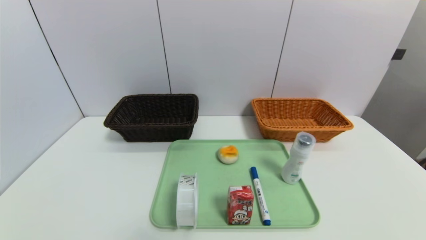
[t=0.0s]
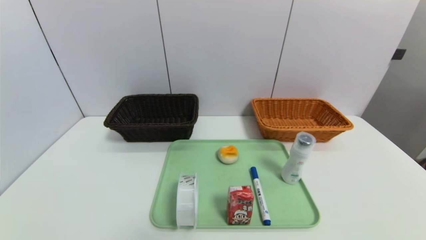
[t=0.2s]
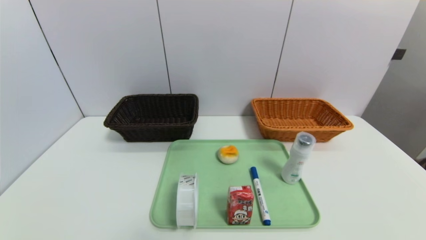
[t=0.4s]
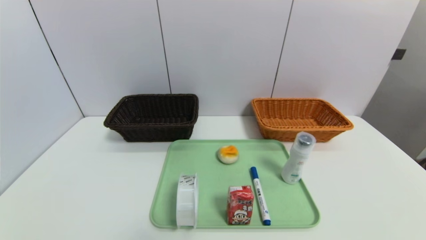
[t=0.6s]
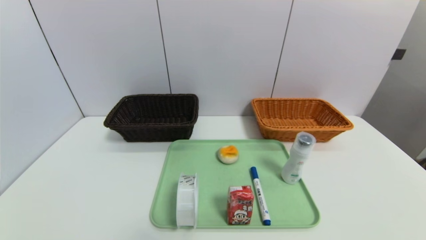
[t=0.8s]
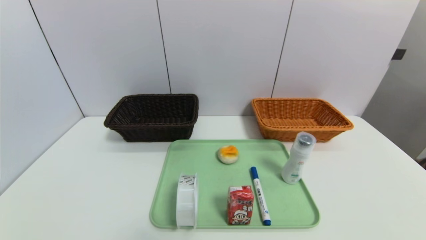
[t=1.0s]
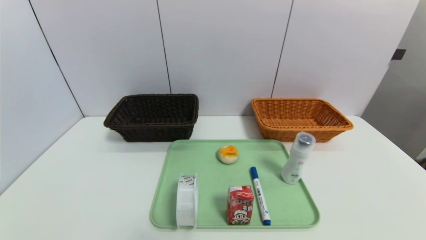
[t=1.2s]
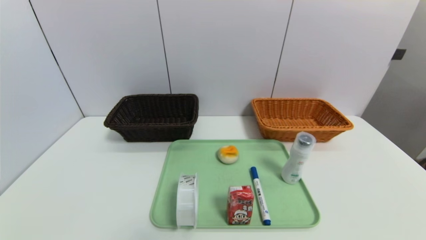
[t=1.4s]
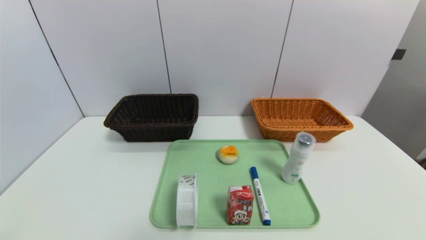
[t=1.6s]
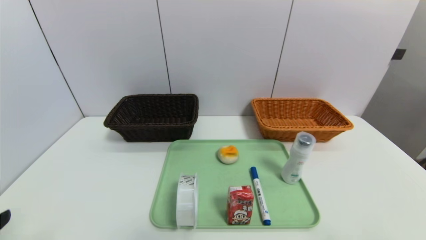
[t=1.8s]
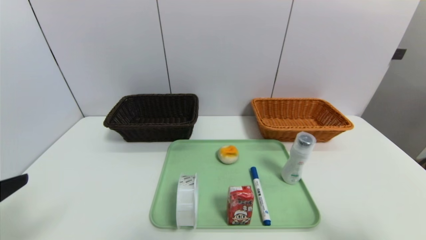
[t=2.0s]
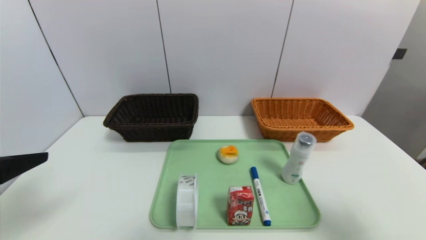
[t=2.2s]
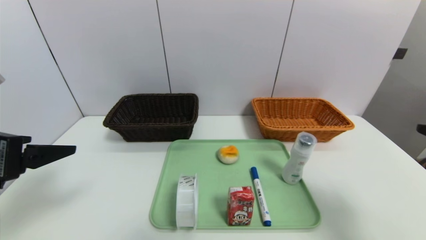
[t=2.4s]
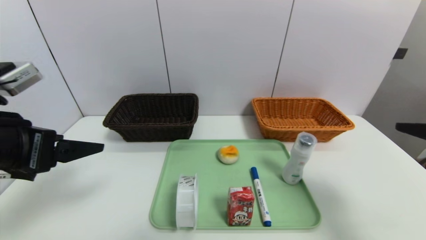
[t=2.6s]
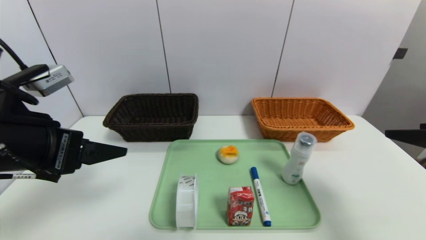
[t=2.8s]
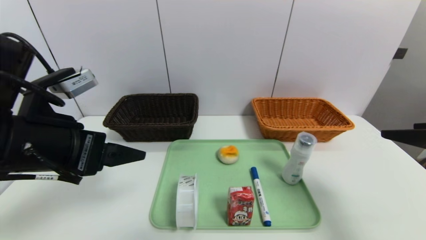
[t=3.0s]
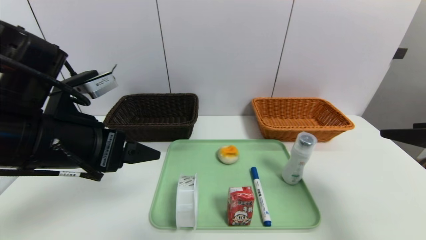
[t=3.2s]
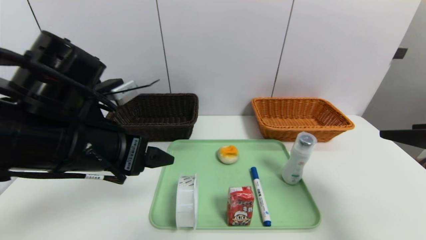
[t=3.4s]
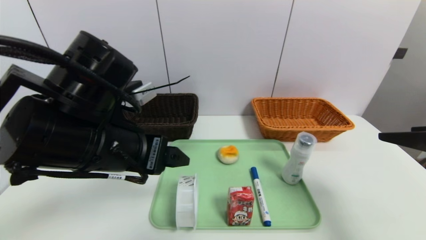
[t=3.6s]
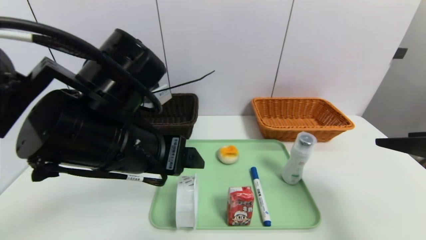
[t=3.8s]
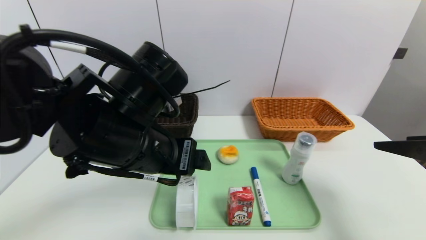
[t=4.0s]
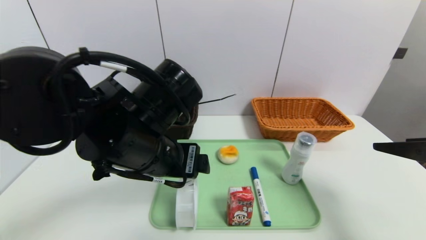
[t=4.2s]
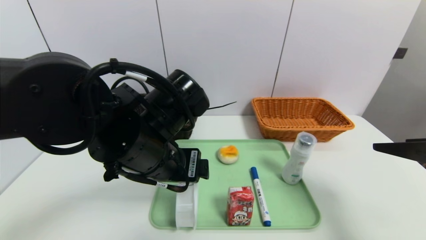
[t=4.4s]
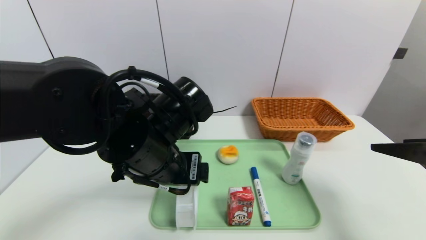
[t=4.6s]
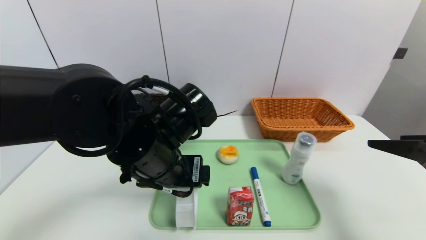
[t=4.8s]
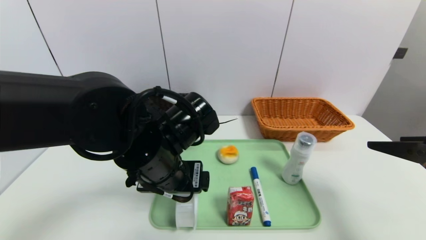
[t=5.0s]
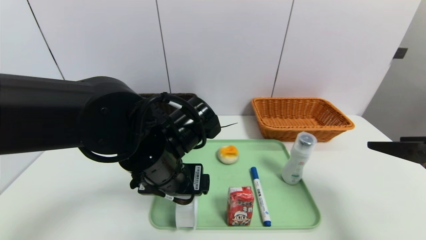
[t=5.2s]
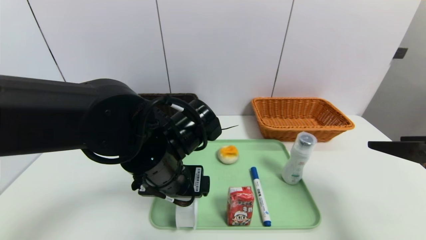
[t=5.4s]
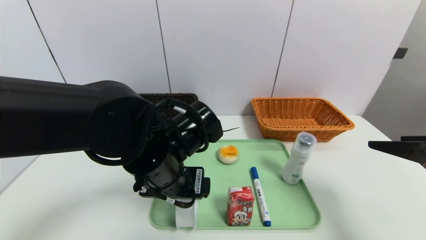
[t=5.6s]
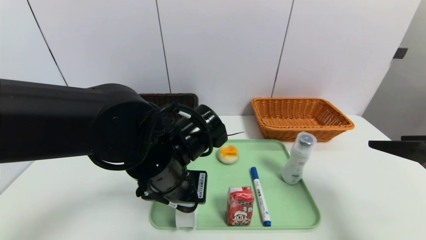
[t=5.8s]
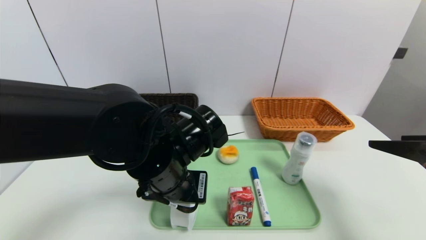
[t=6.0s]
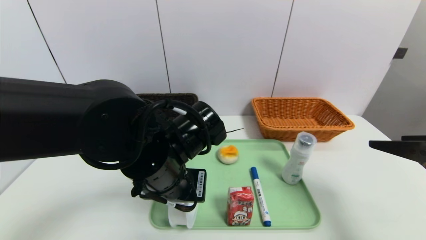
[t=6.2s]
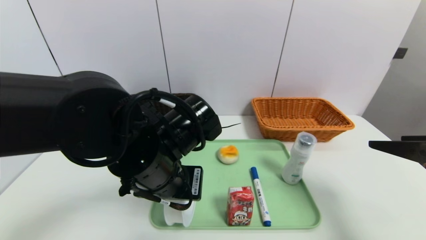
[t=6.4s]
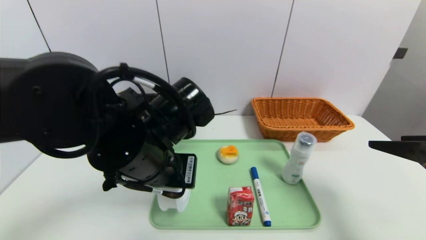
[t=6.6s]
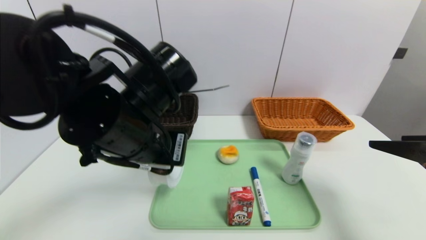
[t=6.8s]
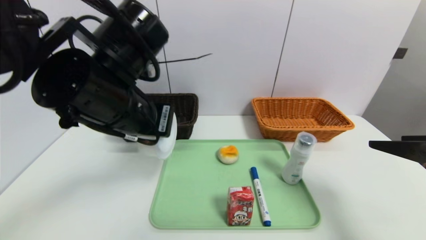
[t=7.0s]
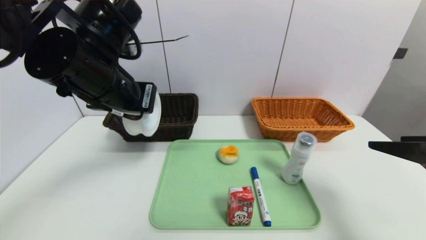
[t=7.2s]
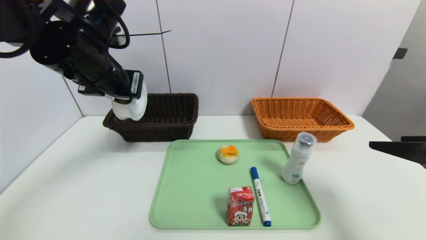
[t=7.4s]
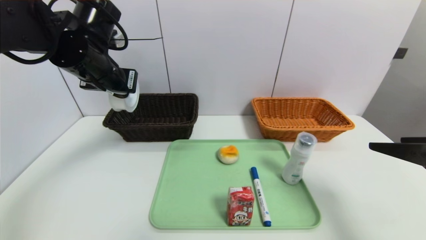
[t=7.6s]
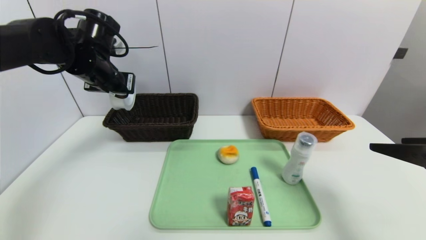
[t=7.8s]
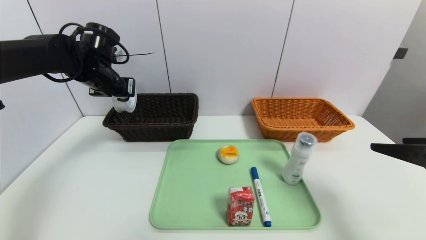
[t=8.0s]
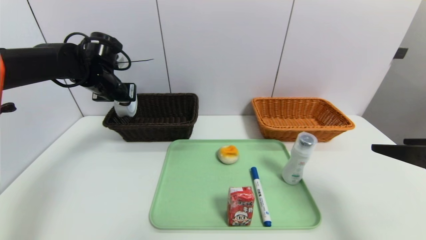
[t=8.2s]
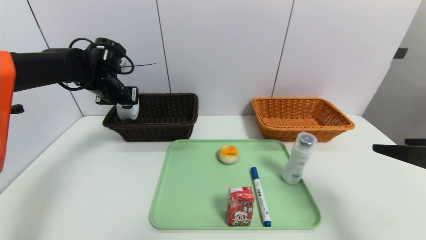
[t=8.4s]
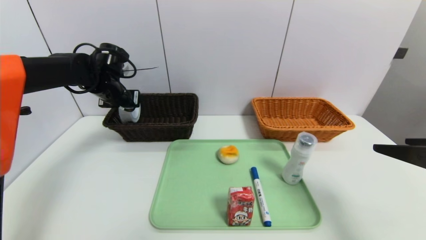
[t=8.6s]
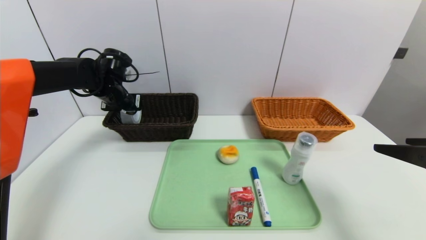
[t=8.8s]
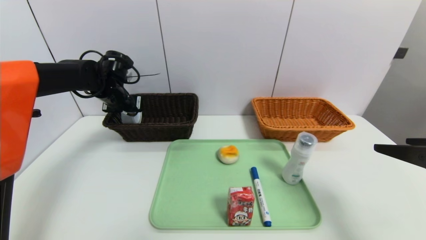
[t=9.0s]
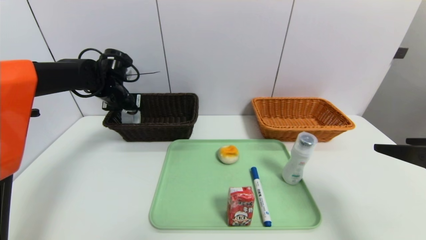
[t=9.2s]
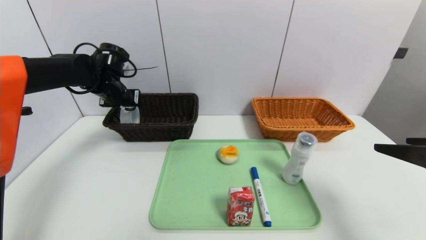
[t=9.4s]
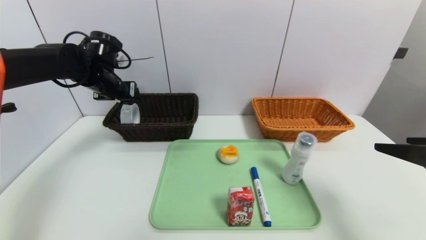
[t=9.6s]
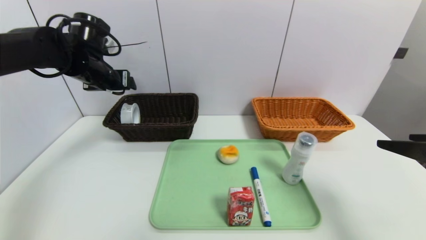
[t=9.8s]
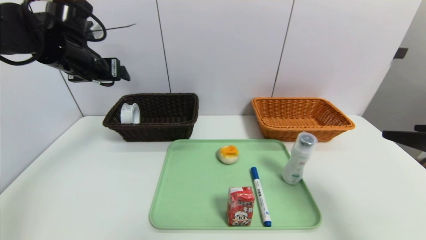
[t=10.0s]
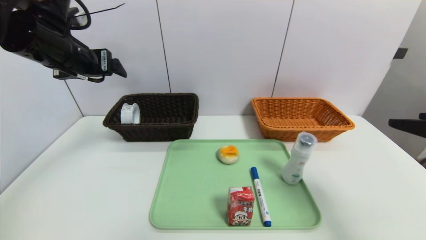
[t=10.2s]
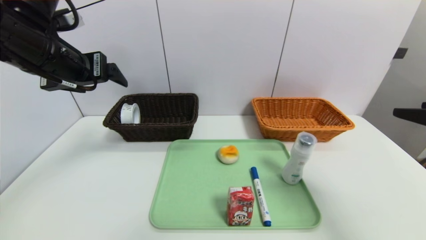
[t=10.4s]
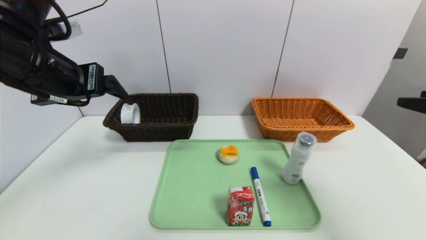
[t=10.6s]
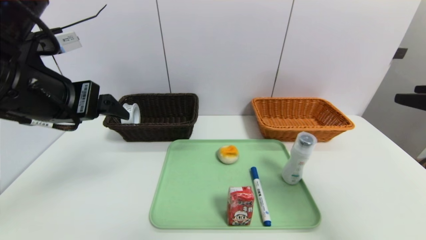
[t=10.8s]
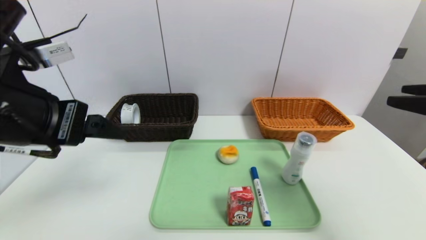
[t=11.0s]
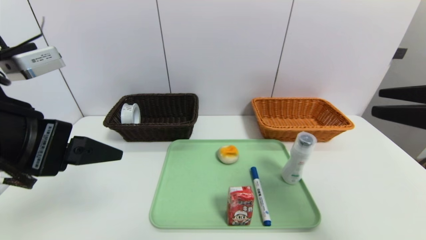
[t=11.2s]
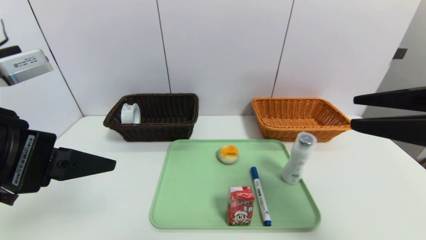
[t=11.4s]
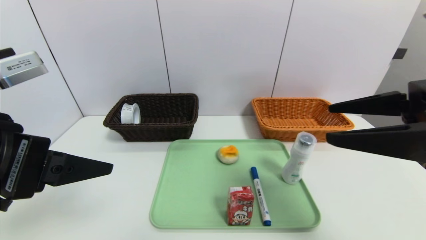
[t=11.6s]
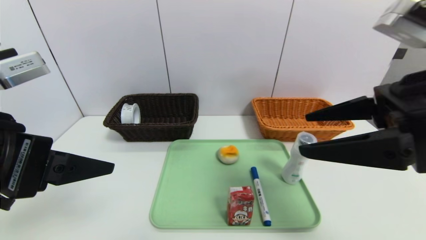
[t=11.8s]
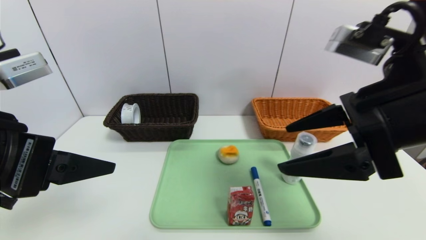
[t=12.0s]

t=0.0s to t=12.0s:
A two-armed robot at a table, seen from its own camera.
Task of the whole recording: place the food in the right basket with the right gripper, and place the non food items in the left basket with the left gripper.
Step, t=0.0s to t=9.6s: Grasp the tape and put it in the left basket.
t=1.6s to t=3.0s: The left gripper goes approximately 20 cm forward, upward and to the right. Meanwhile the right gripper shifts roughly 20 cm forward and upward.
t=3.0s to t=4.4s: The left gripper heads to the right, covering approximately 15 cm.
t=4.4s to t=6.0s: The left gripper closes up.
t=6.0s to t=7.6s: The left gripper shifts roughly 20 cm to the left, forward and upward.
t=7.6s to t=9.0s: The left gripper goes some 15 cm forward and downward.
t=9.0s to t=10.4s: The left gripper goes about 20 cm backward and upward, and opens its fingers.
t=10.4s to t=12.0s: The left gripper heads backward, covering roughly 15 cm. Meanwhile the right gripper travels to the left by roughly 15 cm.

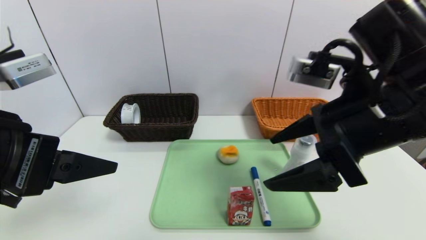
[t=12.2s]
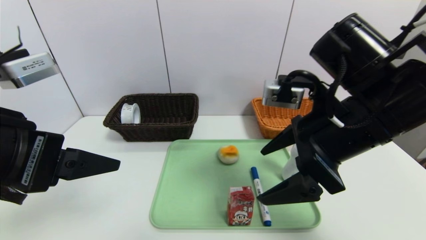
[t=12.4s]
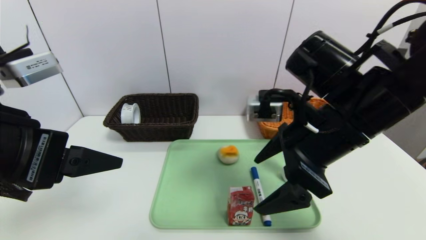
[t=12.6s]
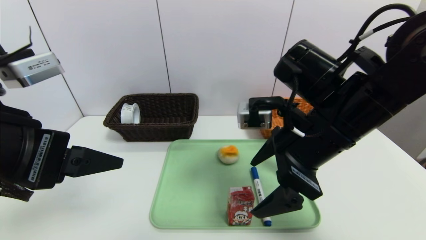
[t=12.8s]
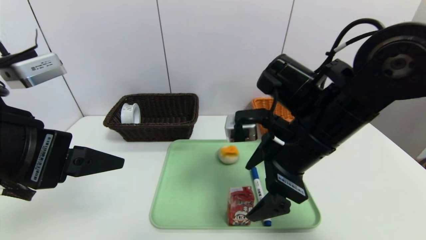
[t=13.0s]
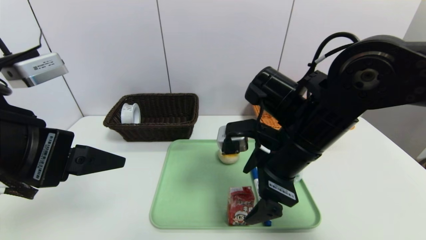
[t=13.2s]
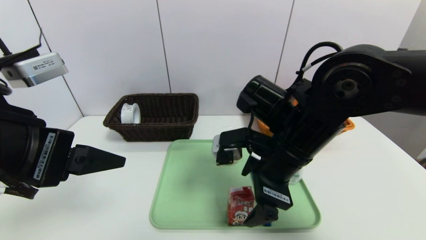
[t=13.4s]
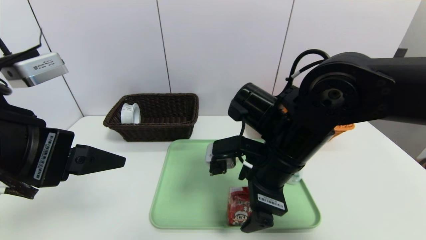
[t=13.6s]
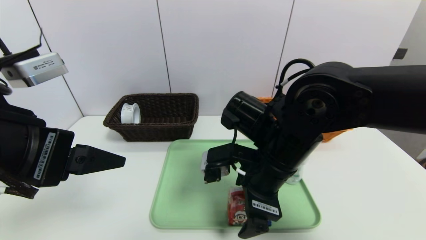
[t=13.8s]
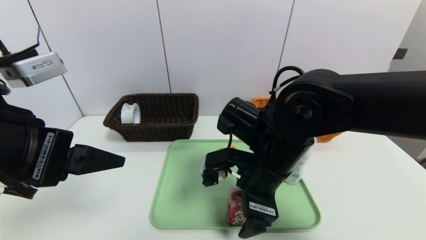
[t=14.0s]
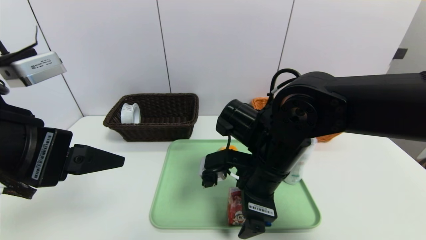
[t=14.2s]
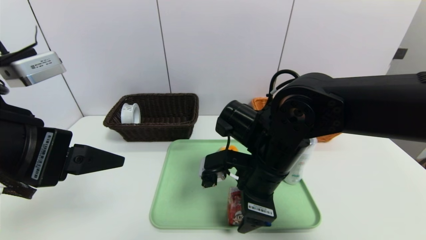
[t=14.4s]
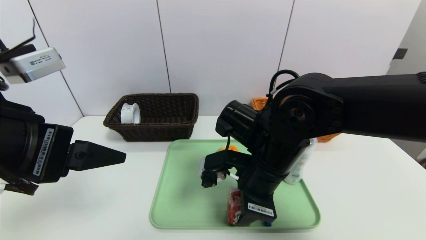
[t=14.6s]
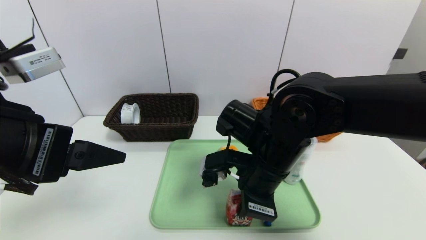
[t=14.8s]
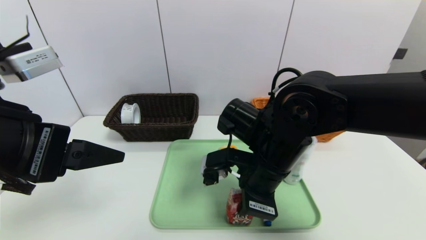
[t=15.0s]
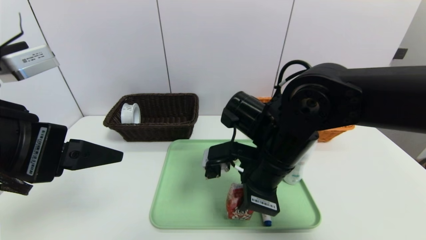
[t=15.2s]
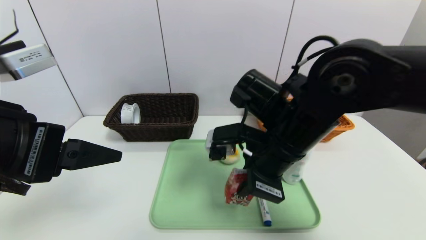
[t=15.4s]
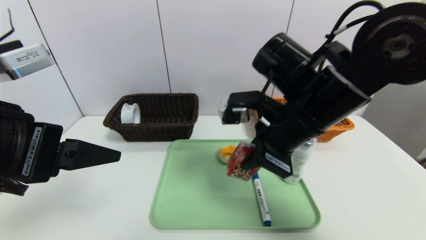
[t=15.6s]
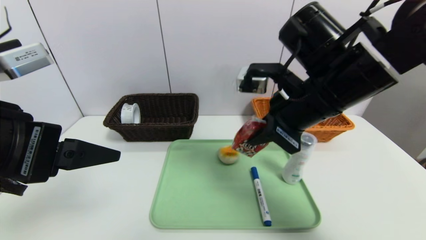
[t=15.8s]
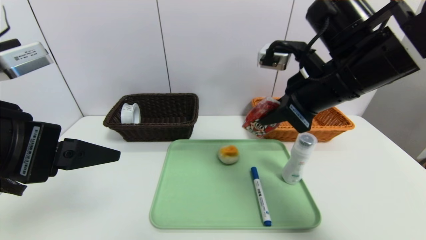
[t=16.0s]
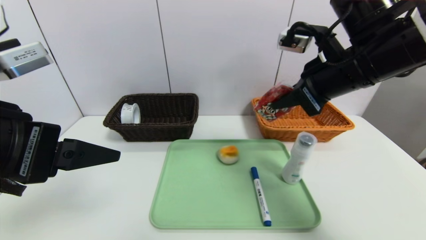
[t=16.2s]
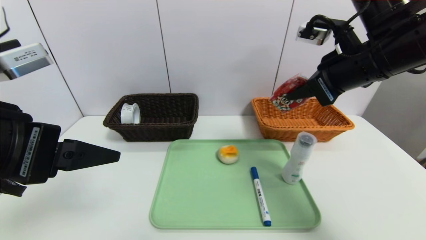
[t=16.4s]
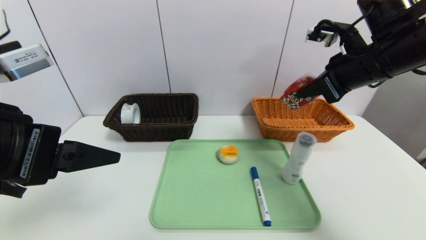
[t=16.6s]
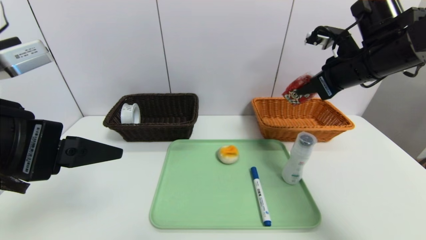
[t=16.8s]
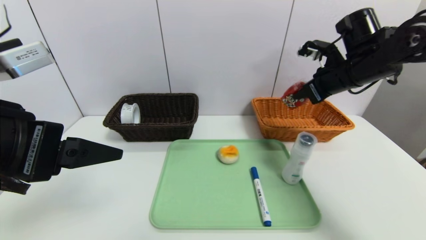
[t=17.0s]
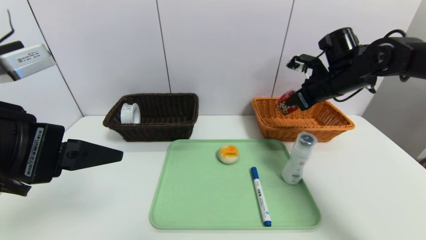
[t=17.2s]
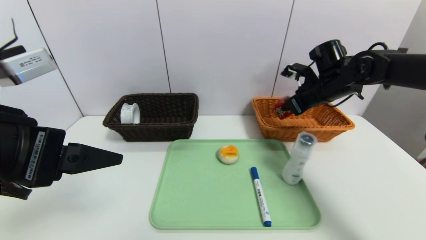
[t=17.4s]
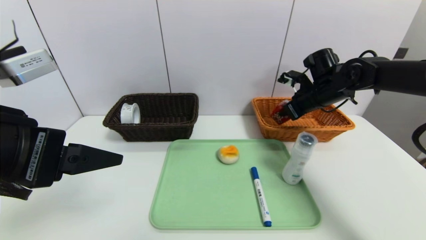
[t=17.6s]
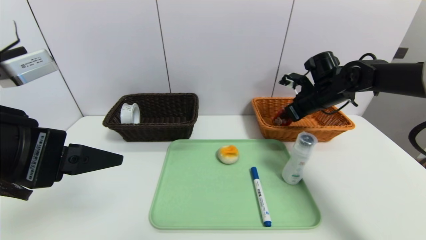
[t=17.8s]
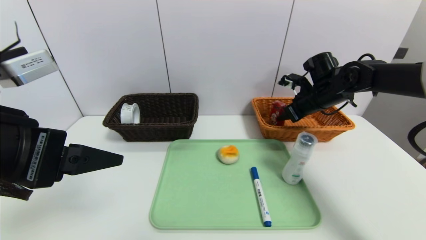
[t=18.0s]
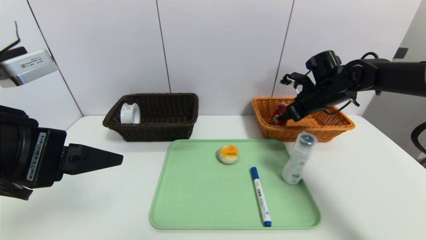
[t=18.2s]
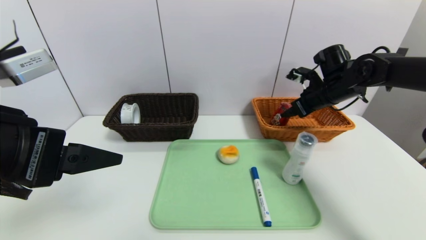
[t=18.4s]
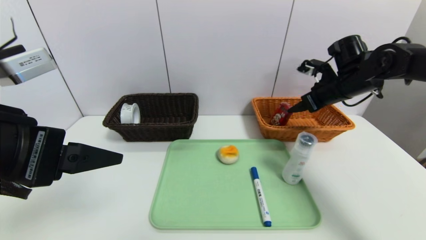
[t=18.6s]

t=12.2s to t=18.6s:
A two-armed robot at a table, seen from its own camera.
Task of the whole recording: place the food in the right basket with the right gripper, and place the non food items in the left basket with the left gripper.
t=12.2s to t=13.8s: The right gripper is displaced downward and to the left by approximately 15 cm.
t=13.8s to t=15.4s: The right gripper closes.
t=15.4s to t=17.0s: The right gripper goes approximately 20 cm to the right and forward.
t=17.0s to t=18.6s: The right gripper opens its fingers.
